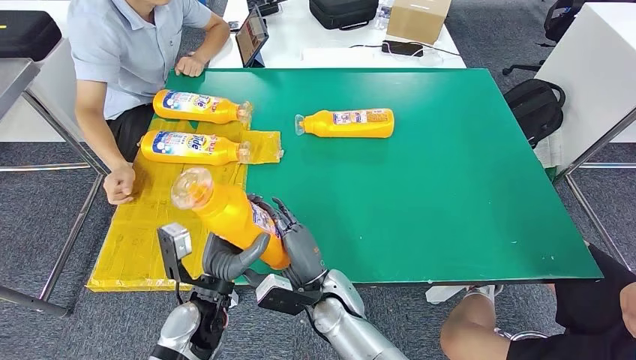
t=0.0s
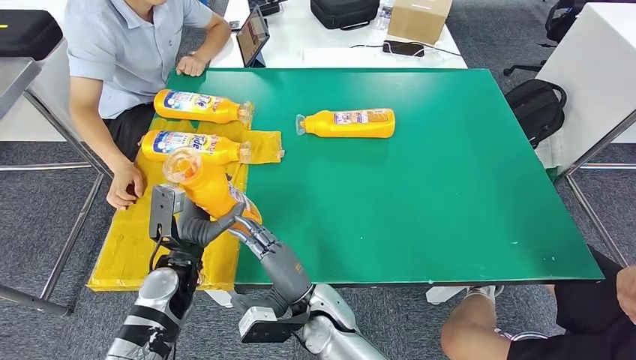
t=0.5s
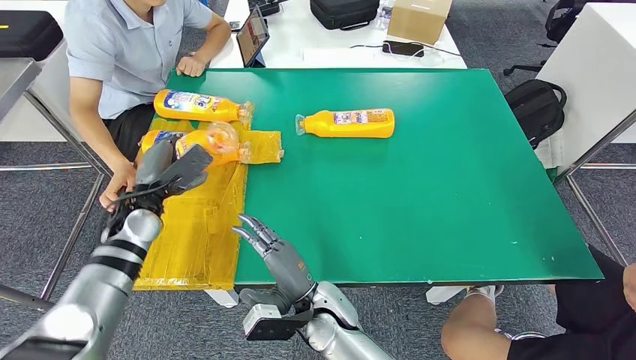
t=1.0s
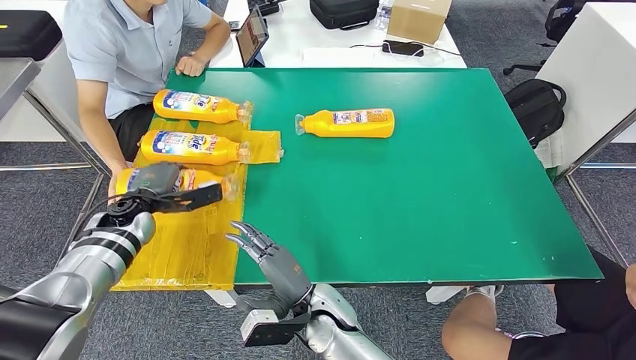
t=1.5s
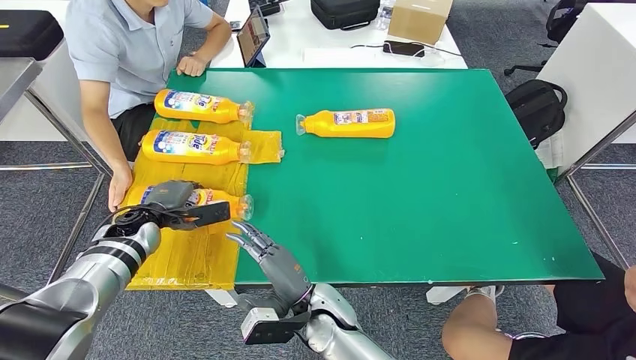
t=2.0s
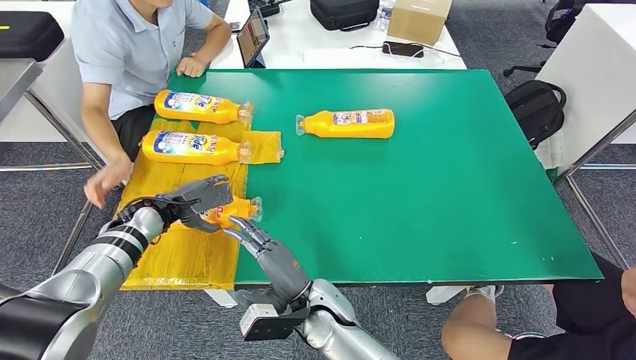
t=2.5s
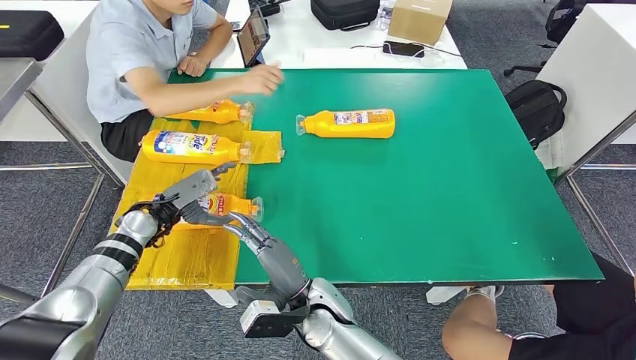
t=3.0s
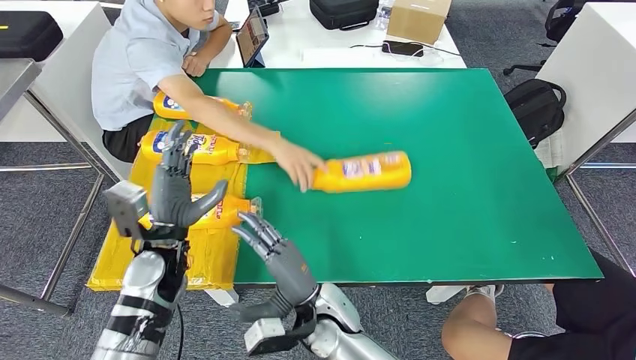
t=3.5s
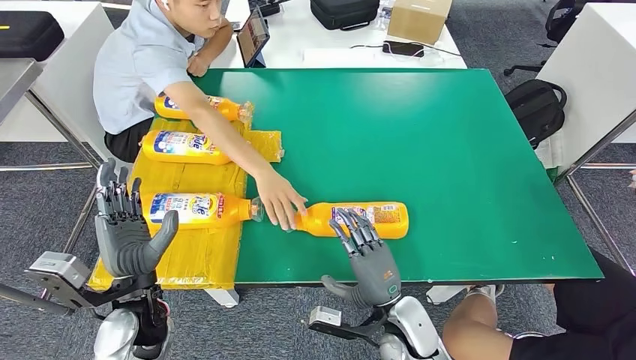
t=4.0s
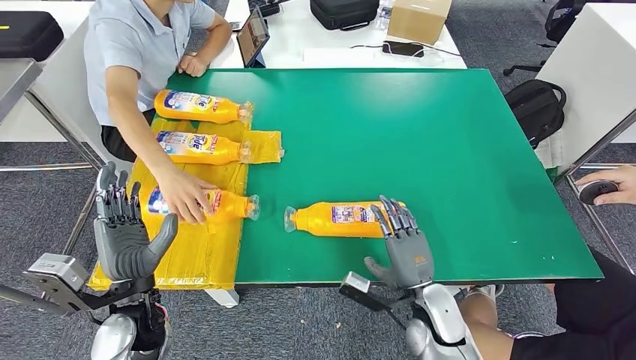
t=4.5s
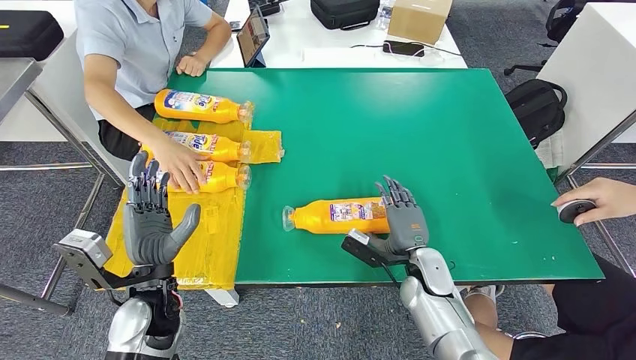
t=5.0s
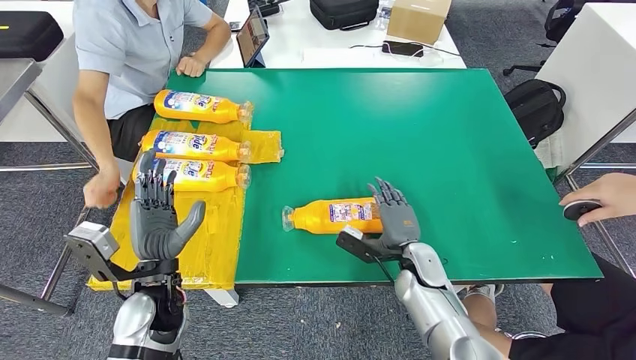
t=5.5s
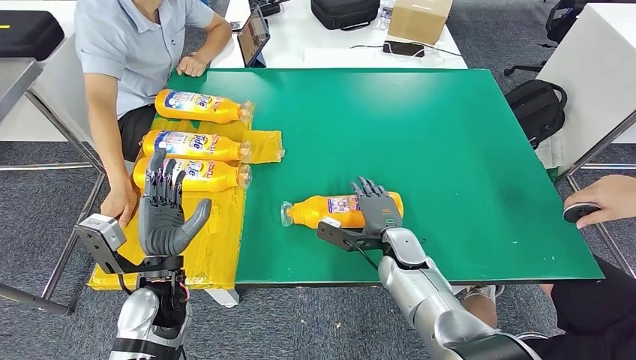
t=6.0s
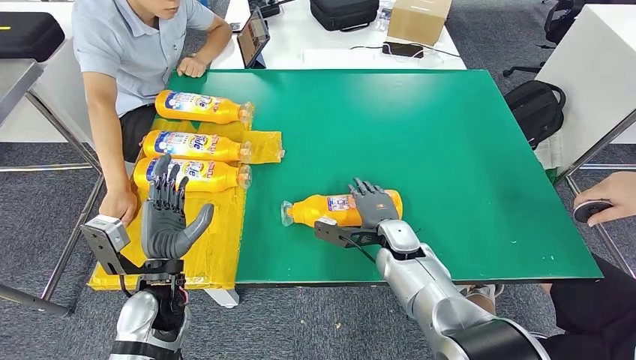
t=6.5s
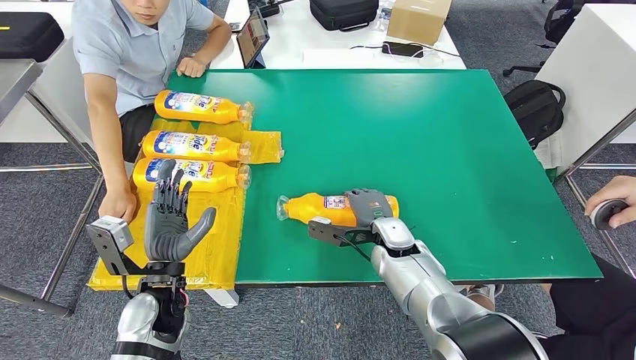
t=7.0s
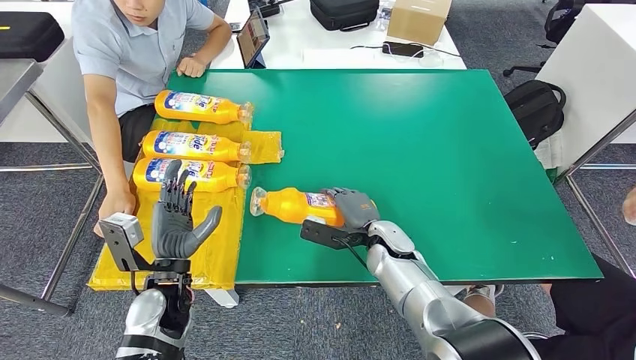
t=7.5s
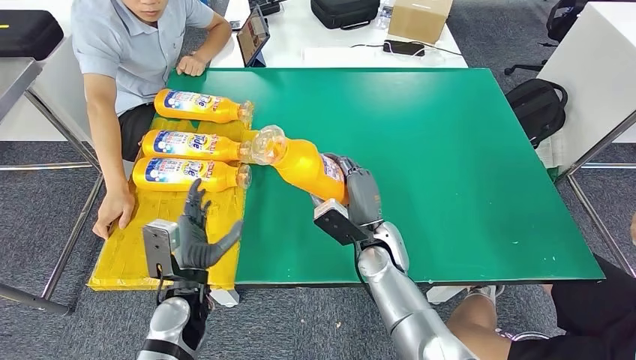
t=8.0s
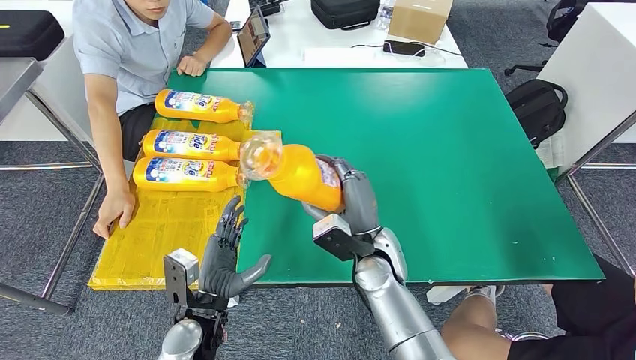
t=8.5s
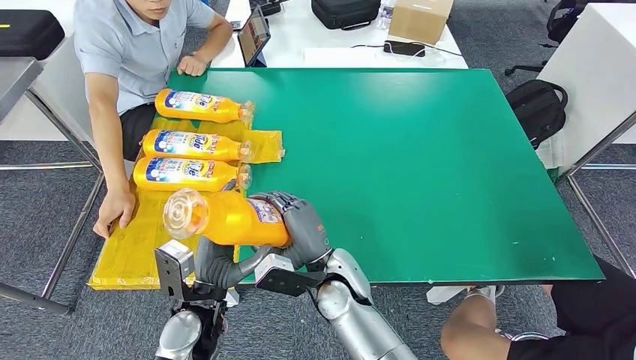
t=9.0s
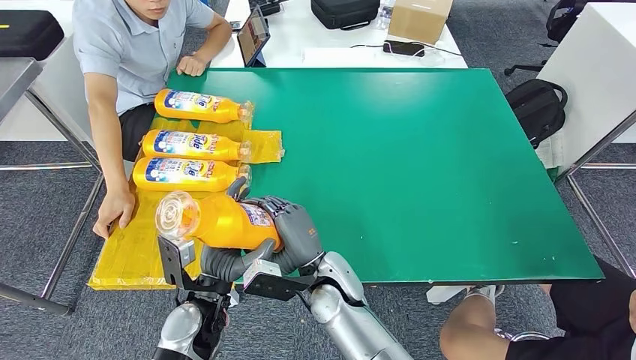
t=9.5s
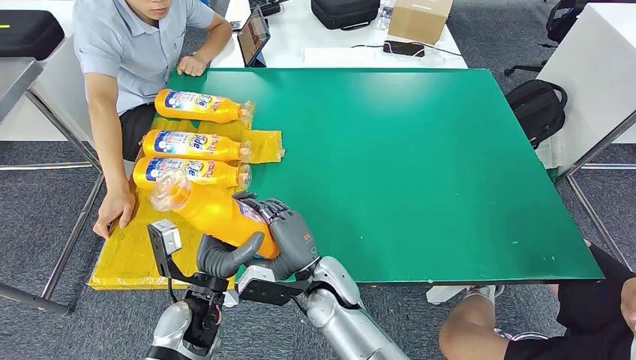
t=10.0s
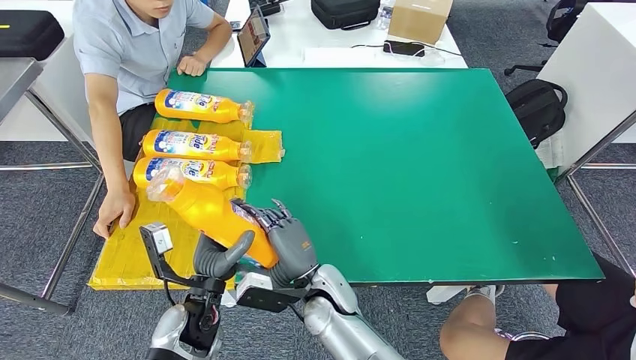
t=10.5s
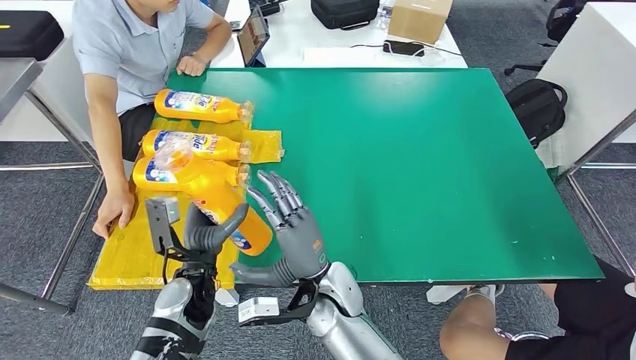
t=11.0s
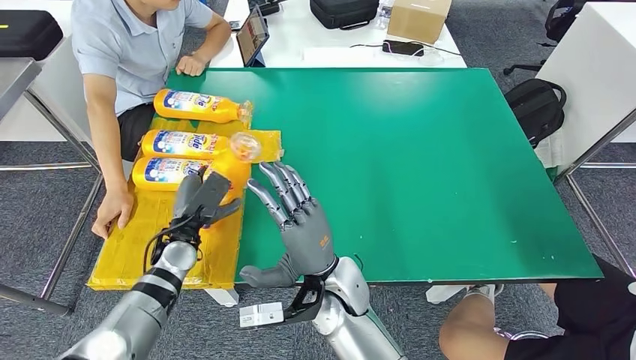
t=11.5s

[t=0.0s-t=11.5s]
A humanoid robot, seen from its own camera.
Step, t=0.0s to t=3.0s: Flip the bottle to face forward.
Step, t=6.0s to t=8.5s: Pick up the bottle from the table.
t=0.0s to t=2.0s: The left hand moves to the left and forward, about 25 cm.
t=6.0s to t=7.5s: The hands move only a little.
t=9.5s to t=11.5s: The left hand shifts some 15 cm forward and to the left.

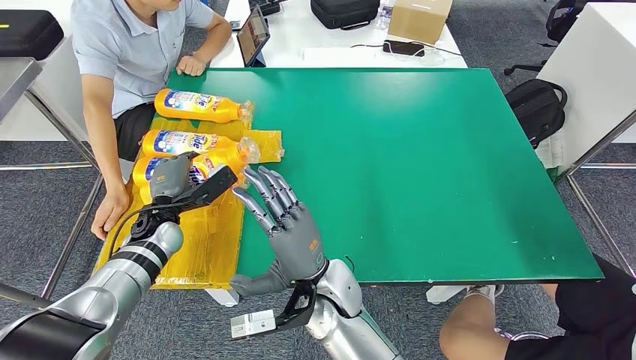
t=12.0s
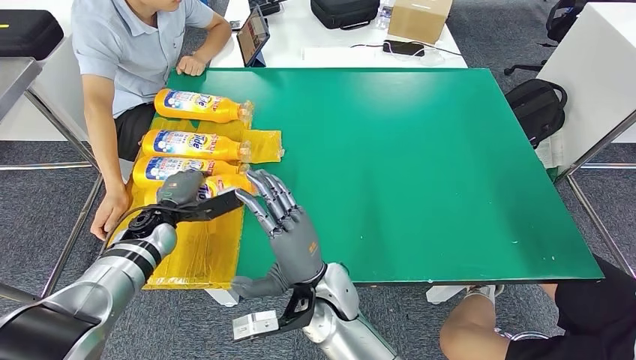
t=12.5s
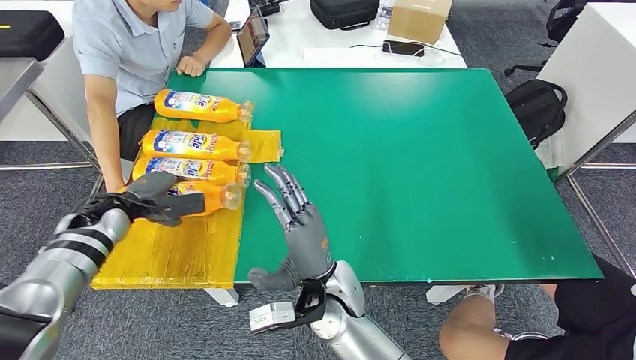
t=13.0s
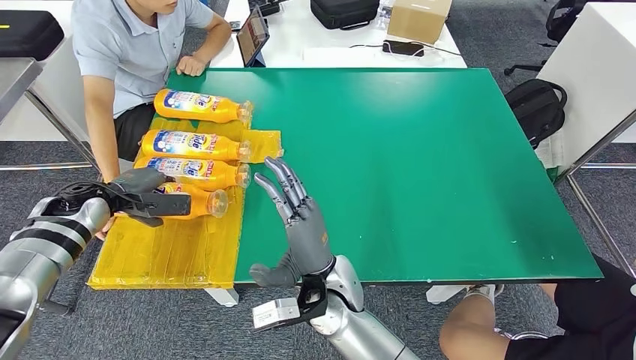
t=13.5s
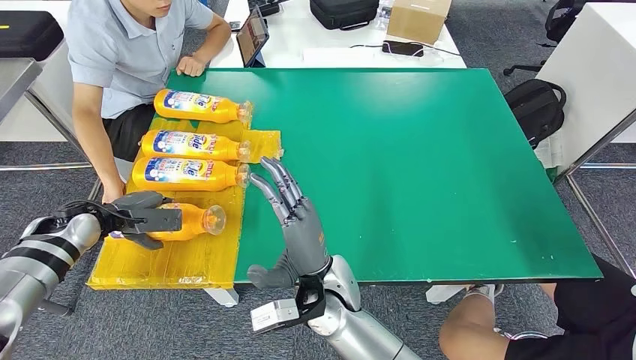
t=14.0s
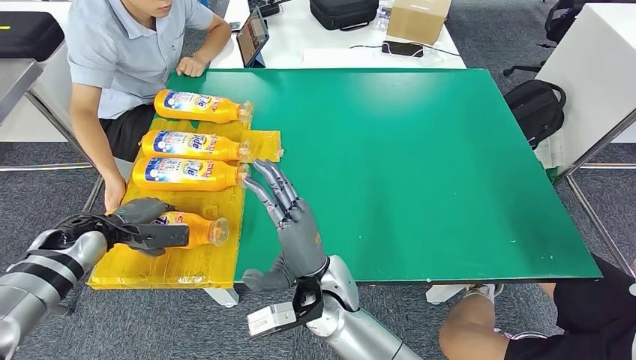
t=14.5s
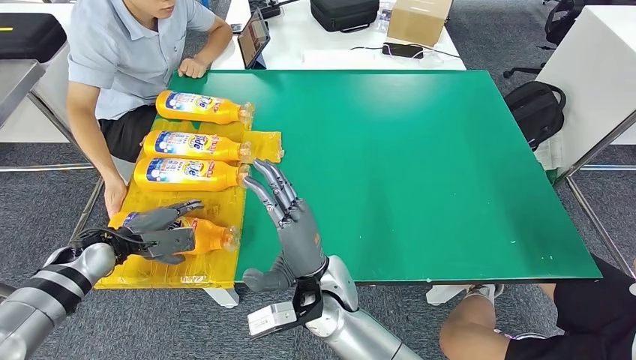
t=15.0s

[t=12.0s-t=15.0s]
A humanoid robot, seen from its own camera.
Step, t=12.0s to t=15.0s: Flip the bottle to face forward.
t=12.0s to t=13.5s: The left hand is displaced to the left and upward by approximately 15 cm.

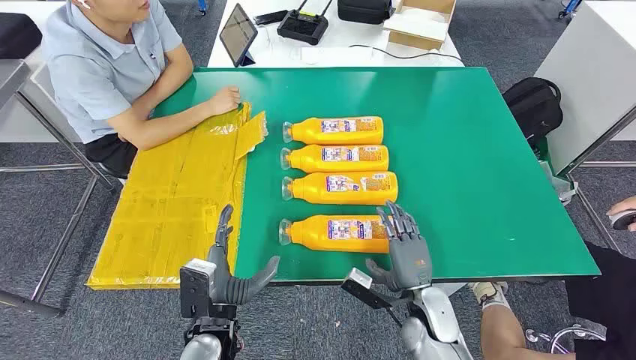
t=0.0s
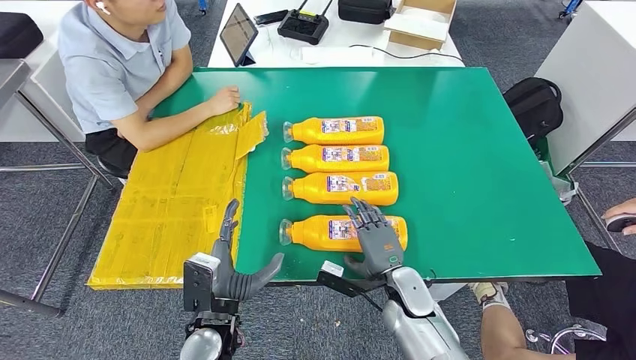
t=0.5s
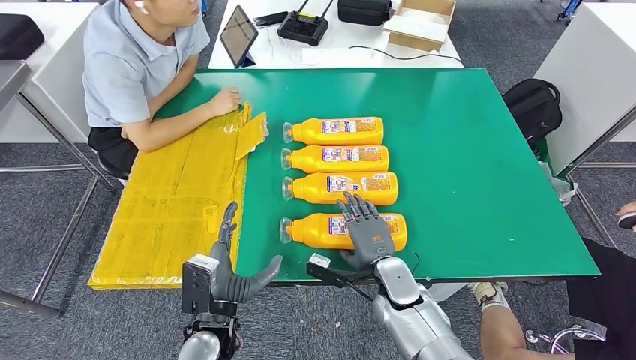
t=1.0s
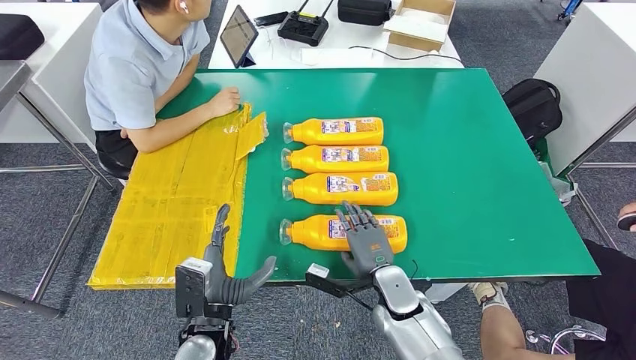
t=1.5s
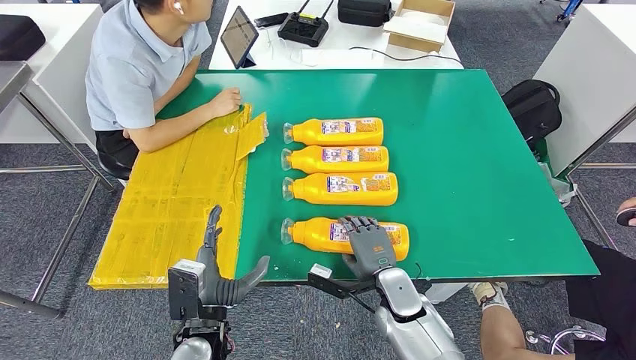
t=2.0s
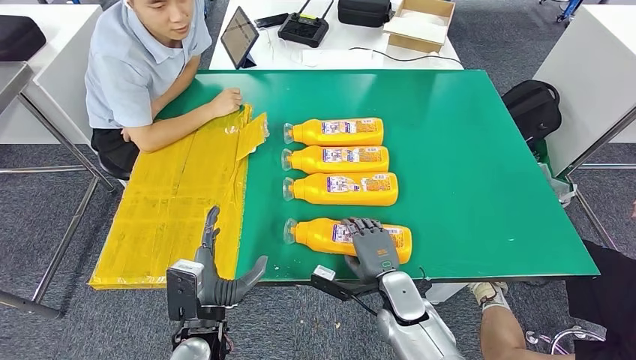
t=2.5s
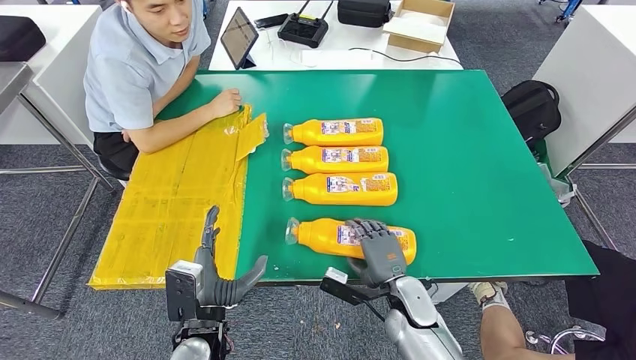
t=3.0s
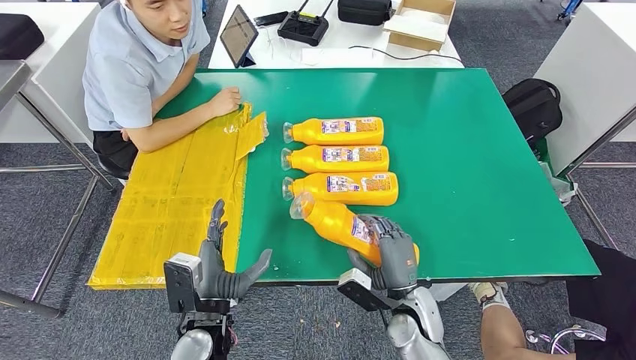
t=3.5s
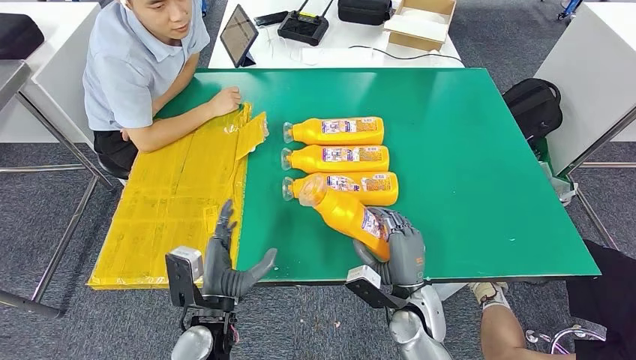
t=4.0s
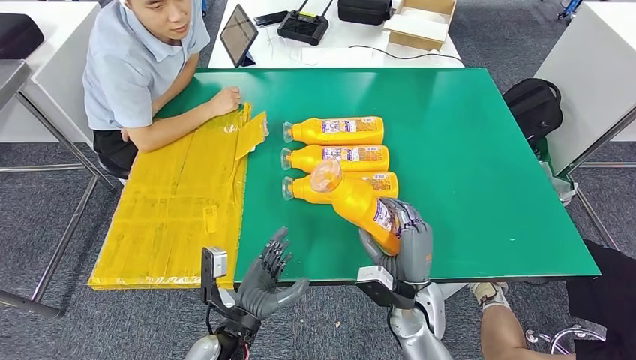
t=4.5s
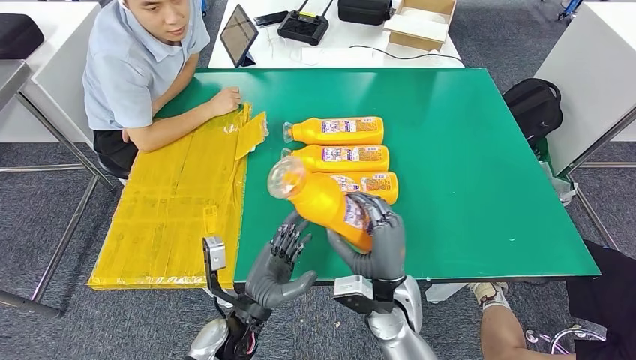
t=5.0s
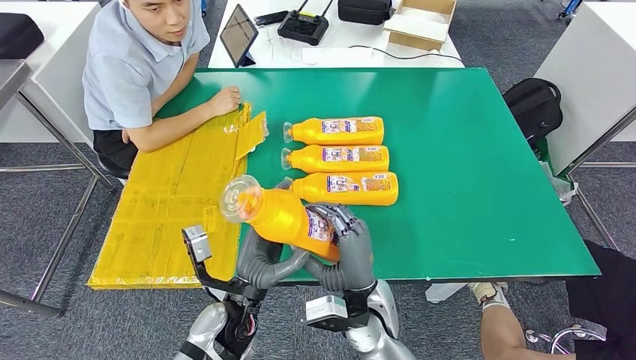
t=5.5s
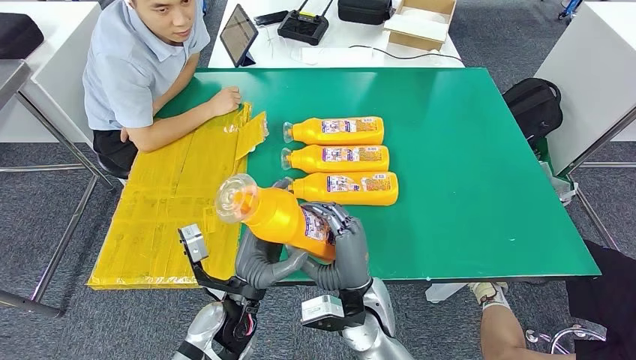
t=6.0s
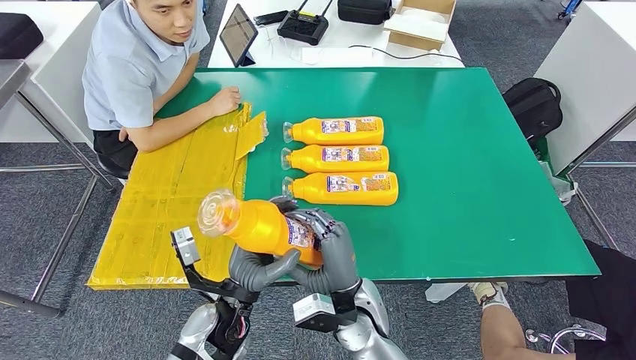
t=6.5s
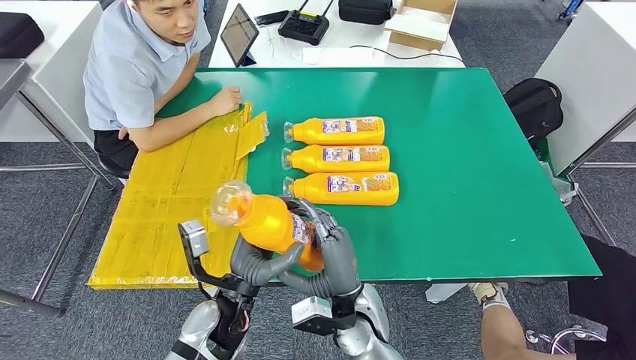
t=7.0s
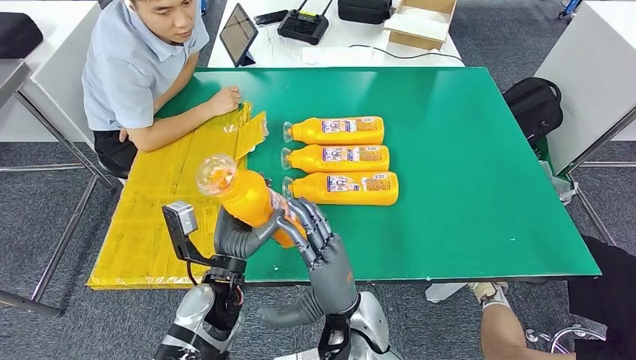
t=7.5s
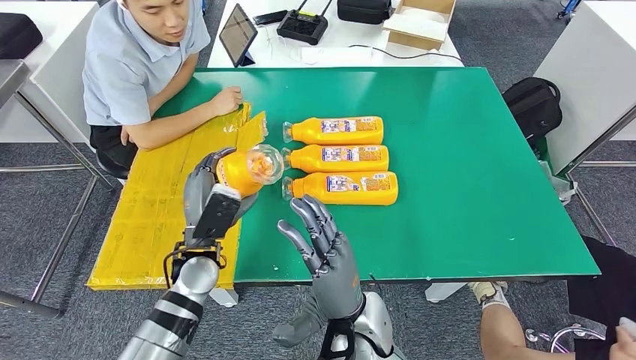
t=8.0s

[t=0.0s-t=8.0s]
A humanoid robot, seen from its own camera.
Step, t=0.0s to t=6.0s: Take the bottle from the table.
t=4.0s to t=6.0s: The left hand ends up about 5 cm from where it was. The right hand moves to the left and upward, approximately 10 cm.
t=6.0s to t=8.0s: The left hand travels forward and to the left by about 10 cm. The right hand shifts by some 5 cm.
